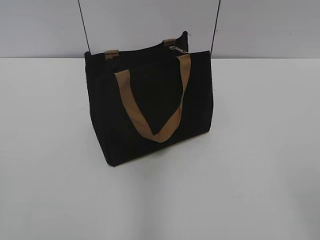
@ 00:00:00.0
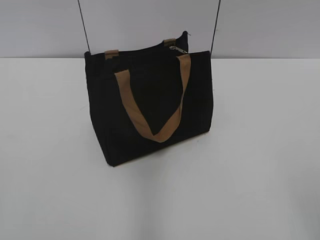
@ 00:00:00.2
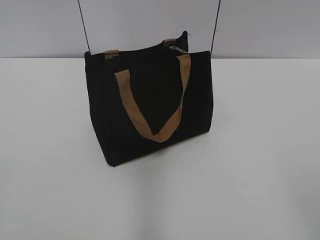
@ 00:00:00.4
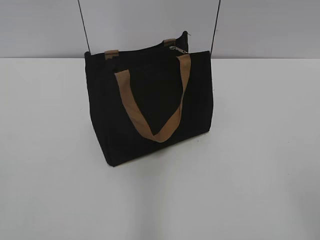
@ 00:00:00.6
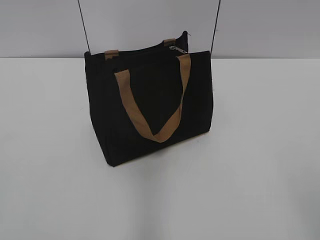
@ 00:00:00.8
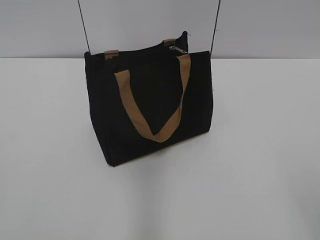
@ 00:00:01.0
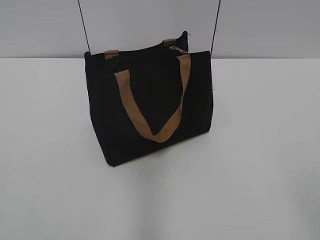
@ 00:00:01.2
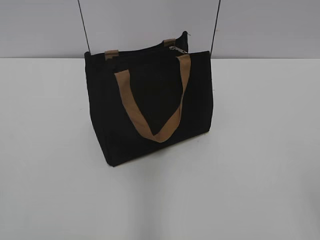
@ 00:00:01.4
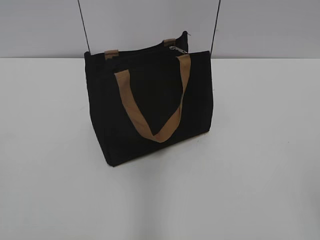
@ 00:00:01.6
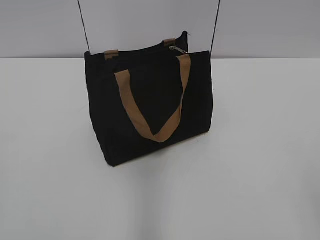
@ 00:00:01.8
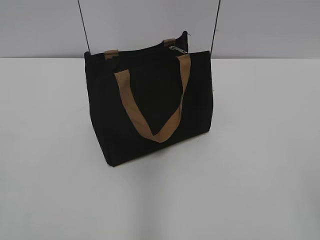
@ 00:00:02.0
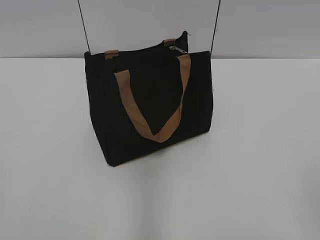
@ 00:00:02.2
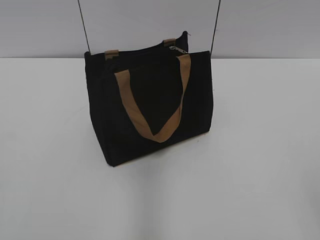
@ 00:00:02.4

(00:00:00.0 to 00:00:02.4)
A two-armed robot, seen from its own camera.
00:00:00.0 - 00:00:01.2: Both grippers stay put.
